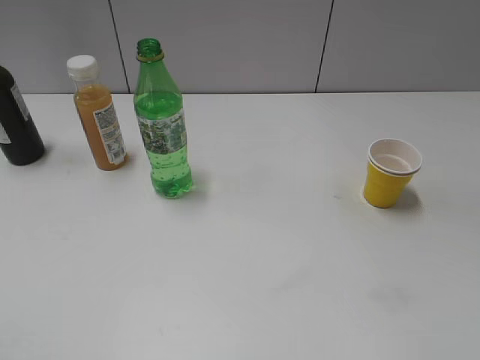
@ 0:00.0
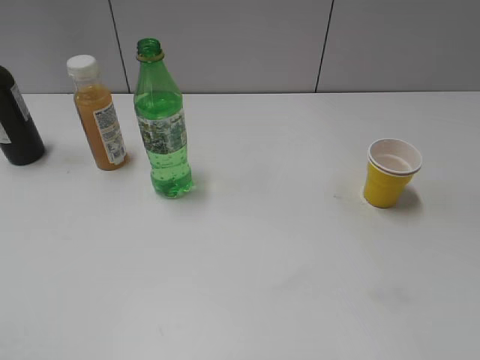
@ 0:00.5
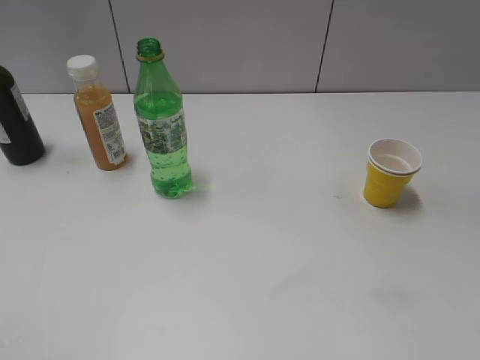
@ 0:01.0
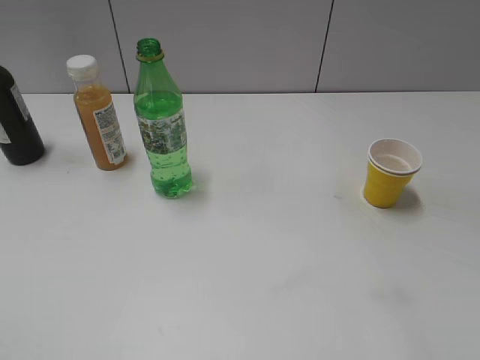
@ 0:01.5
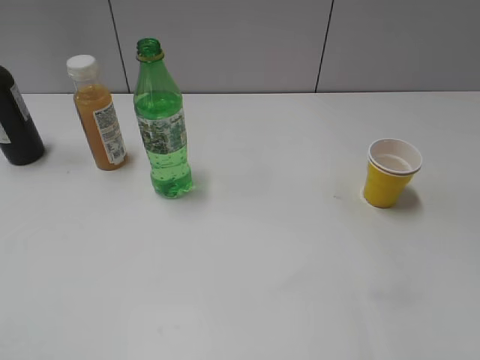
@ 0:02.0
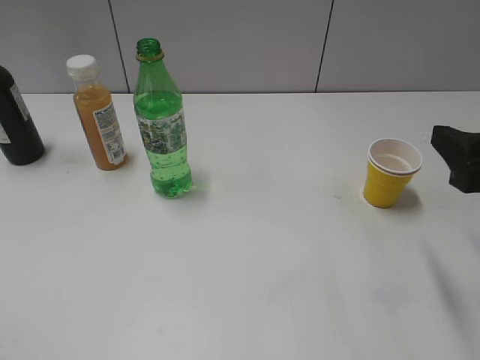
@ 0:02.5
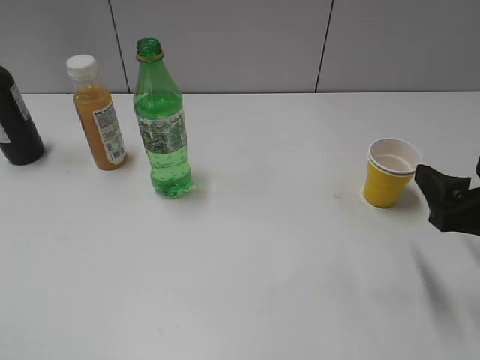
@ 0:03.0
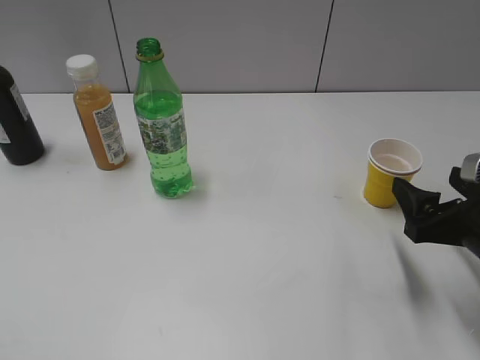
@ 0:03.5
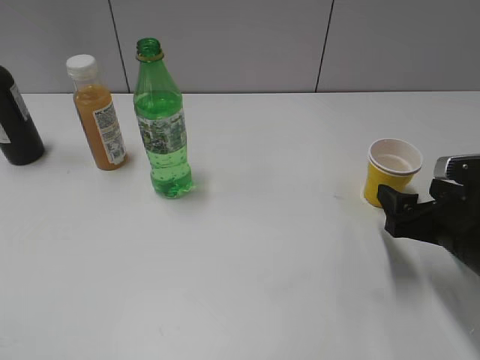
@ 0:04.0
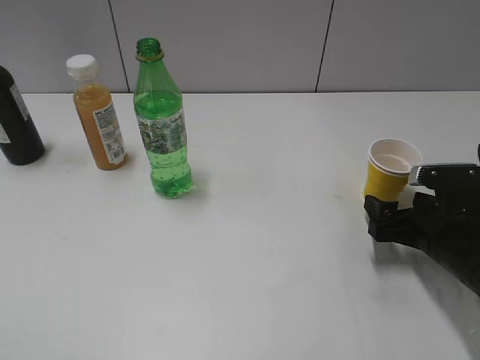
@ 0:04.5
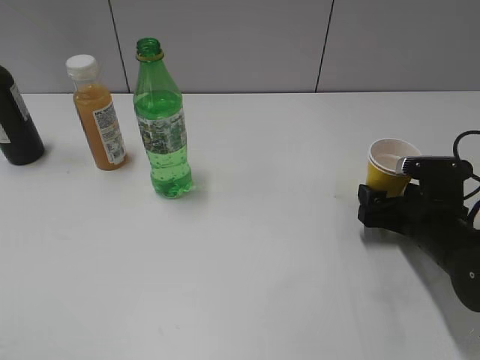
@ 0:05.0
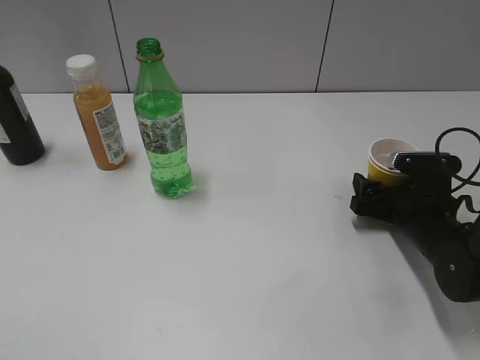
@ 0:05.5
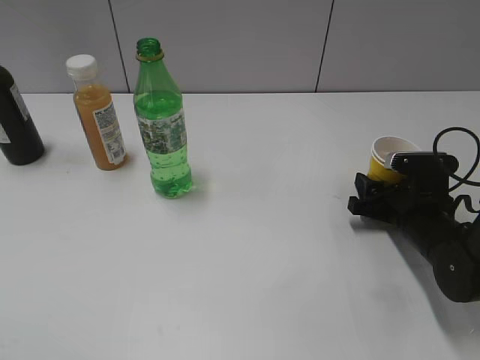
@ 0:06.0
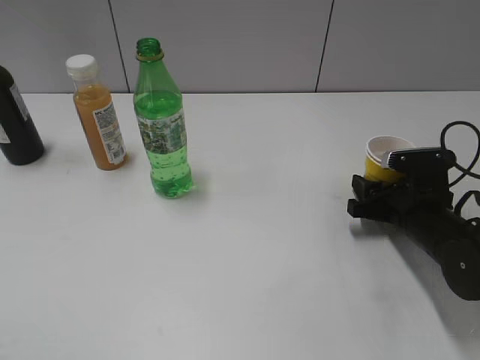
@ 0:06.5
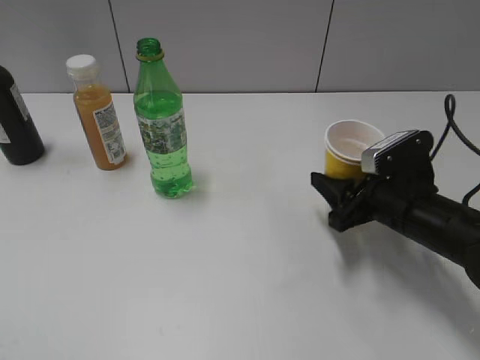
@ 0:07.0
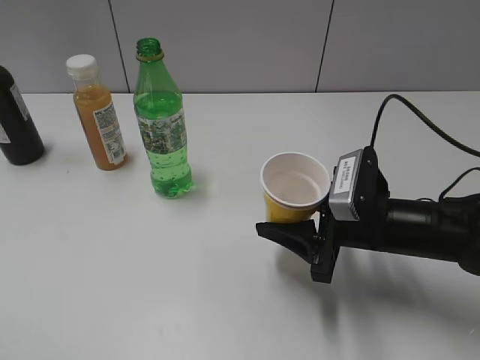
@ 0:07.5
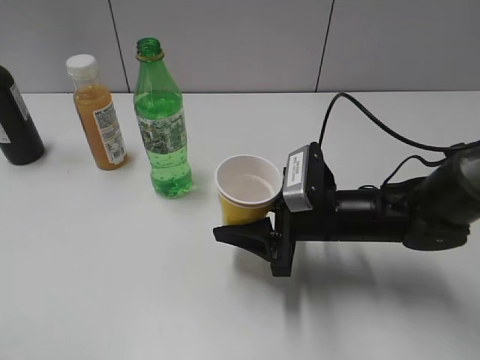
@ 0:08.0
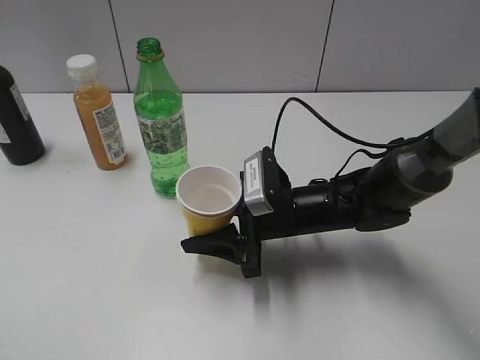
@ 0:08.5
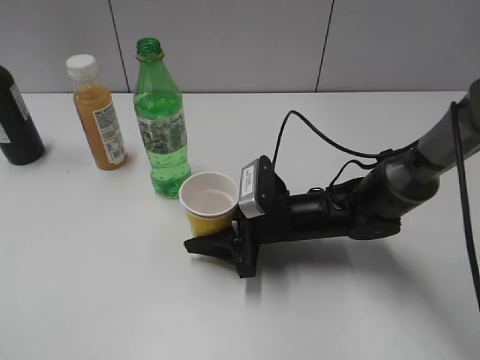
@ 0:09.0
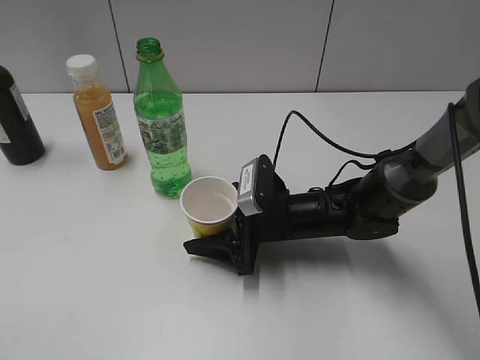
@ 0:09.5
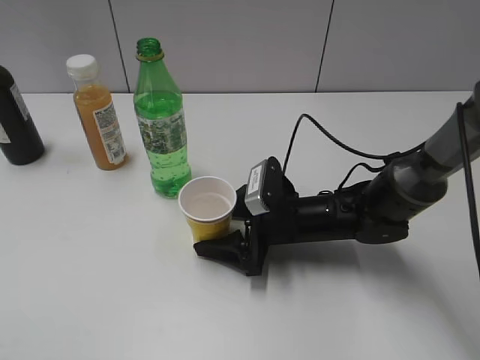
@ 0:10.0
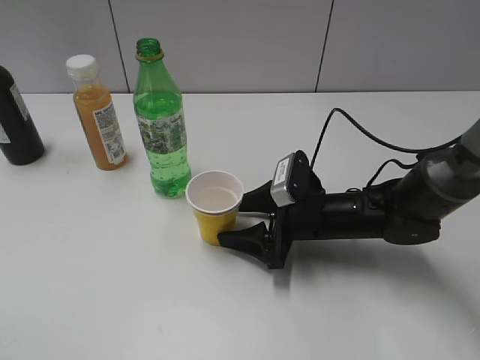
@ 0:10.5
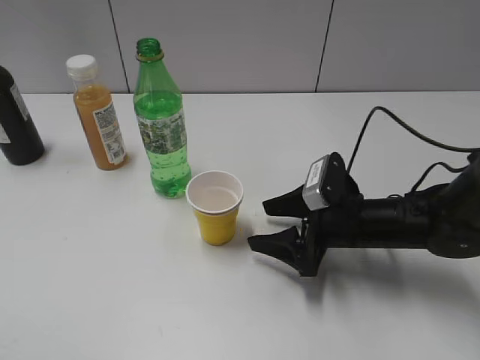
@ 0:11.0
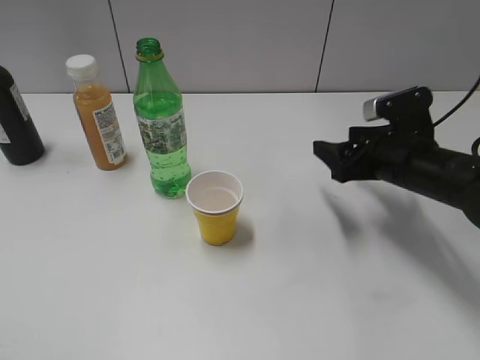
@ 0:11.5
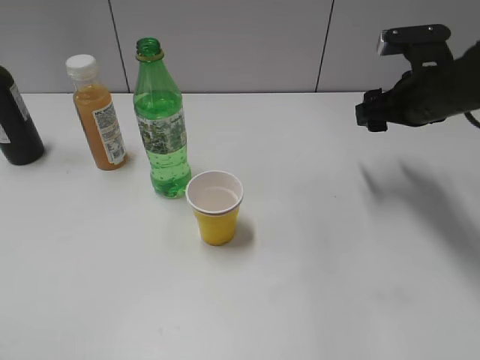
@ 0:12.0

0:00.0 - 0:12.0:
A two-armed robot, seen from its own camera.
Step, 0:01.0 - 0:06.0: Grasp the yellow paper cup with right gripper.
Step, 0:06.5 - 0:10.5: Place the yellow paper cup on the table with right gripper.
0:02.0 - 0:04.0: The right gripper moves downward, roughly 20 cm, and opens up.
0:04.0 - 0:06.0: The right gripper shifts roughly 10 cm forward and downward, and closes its fingers.
0:06.0 - 0:08.0: The right gripper is displaced to the left by approximately 15 cm.
0:08.0 - 0:10.0: The right gripper is displaced downward by roughly 5 cm, and opens.
0:10.0 - 0:12.0: The right gripper moves upward, to the right and forward, approximately 20 cm.

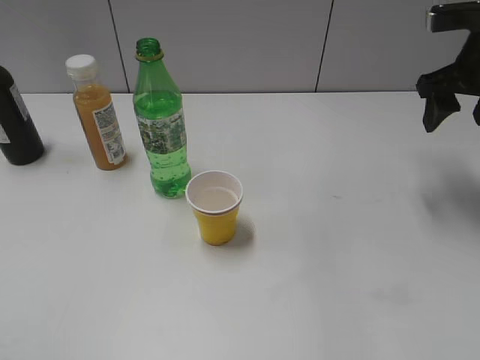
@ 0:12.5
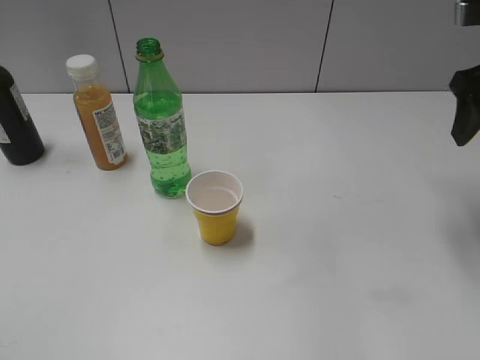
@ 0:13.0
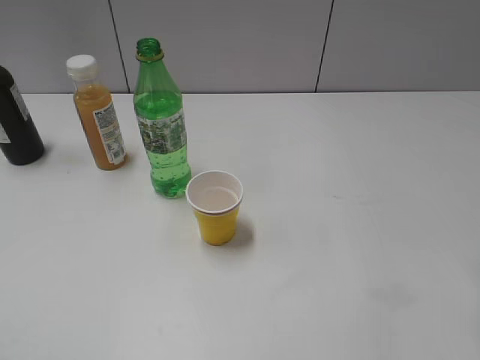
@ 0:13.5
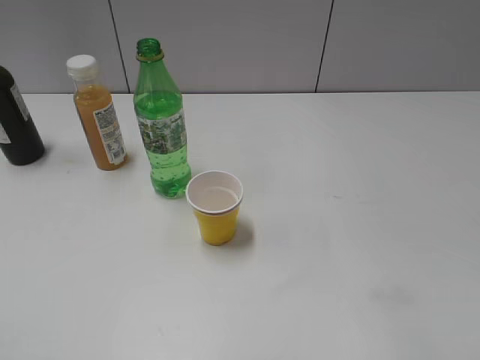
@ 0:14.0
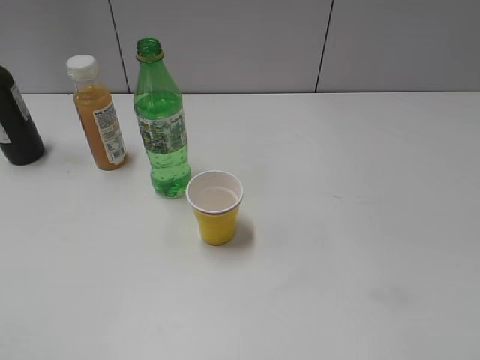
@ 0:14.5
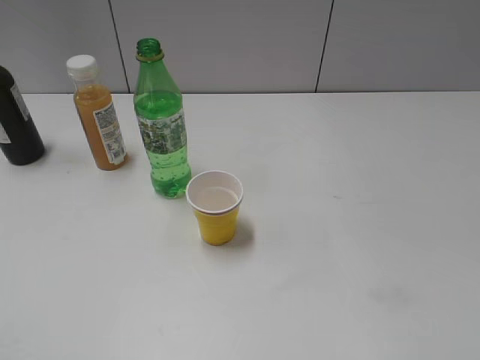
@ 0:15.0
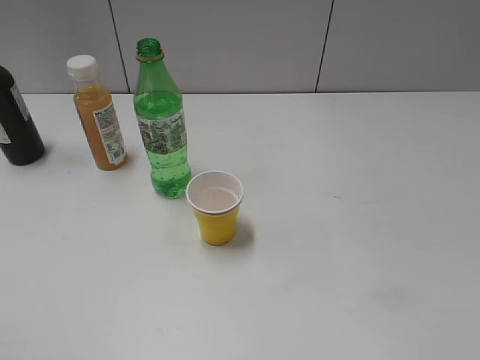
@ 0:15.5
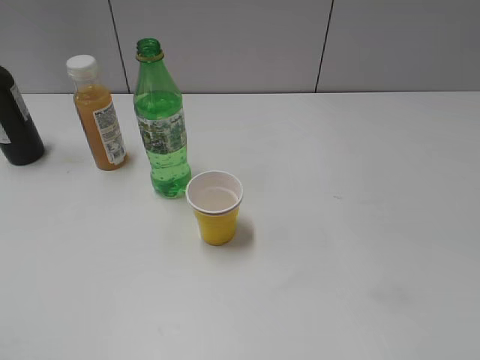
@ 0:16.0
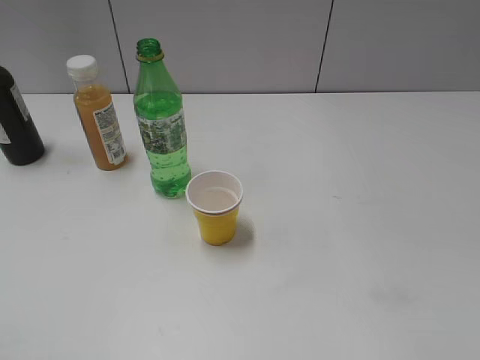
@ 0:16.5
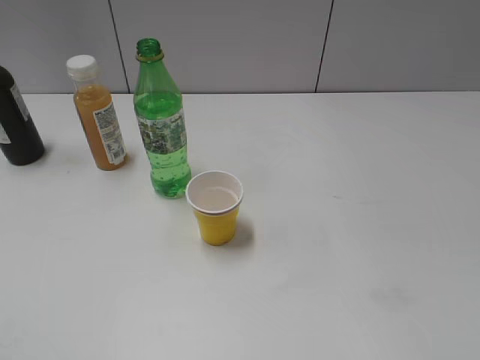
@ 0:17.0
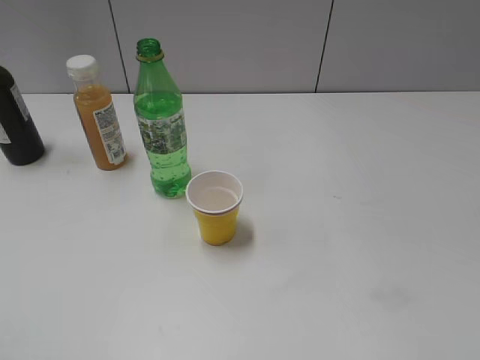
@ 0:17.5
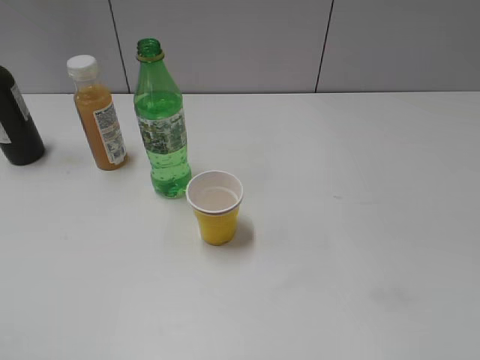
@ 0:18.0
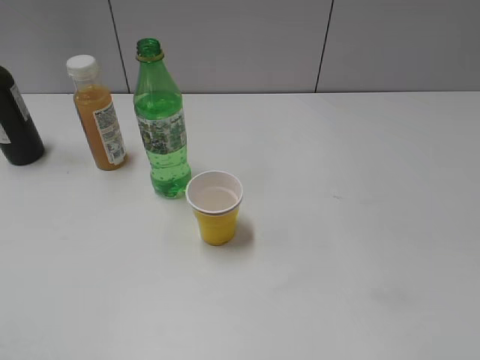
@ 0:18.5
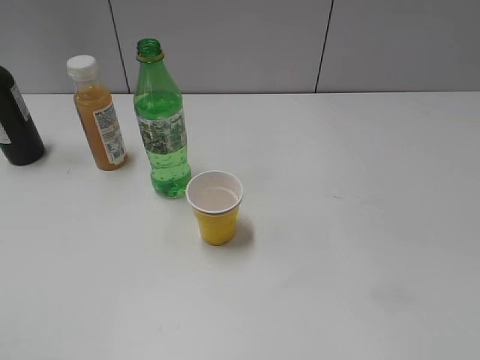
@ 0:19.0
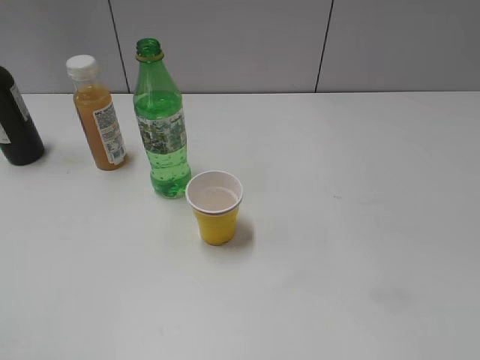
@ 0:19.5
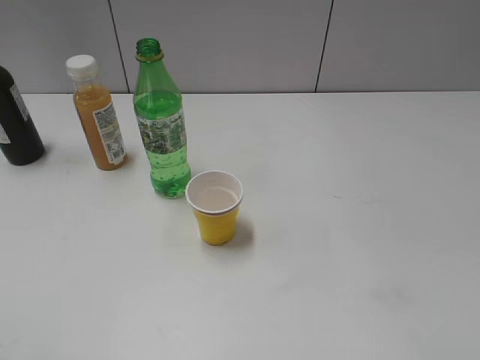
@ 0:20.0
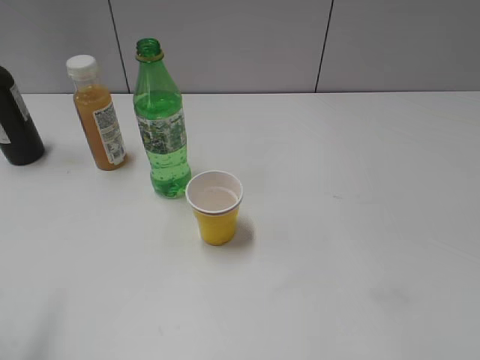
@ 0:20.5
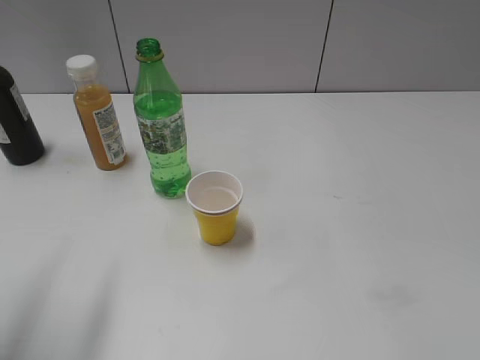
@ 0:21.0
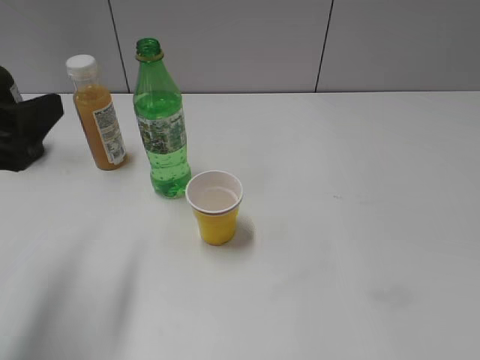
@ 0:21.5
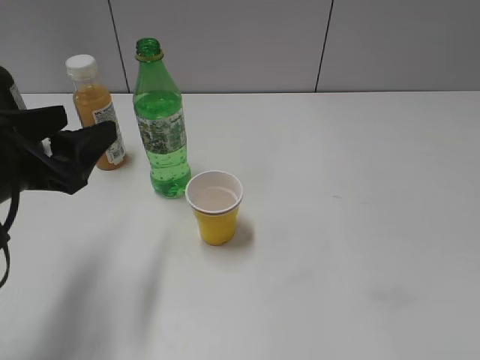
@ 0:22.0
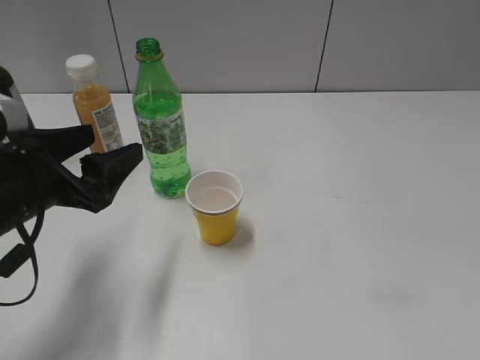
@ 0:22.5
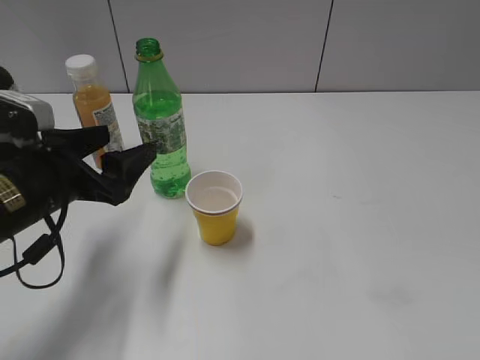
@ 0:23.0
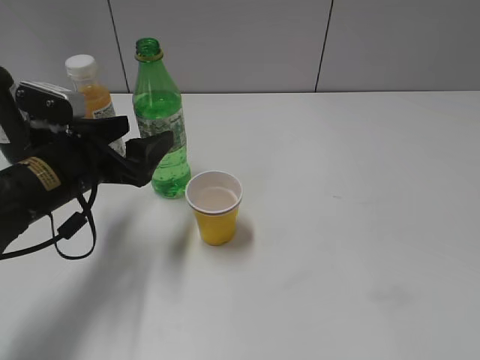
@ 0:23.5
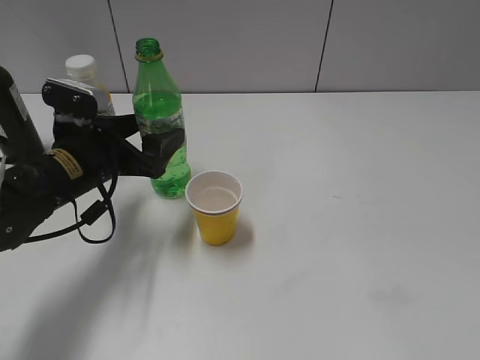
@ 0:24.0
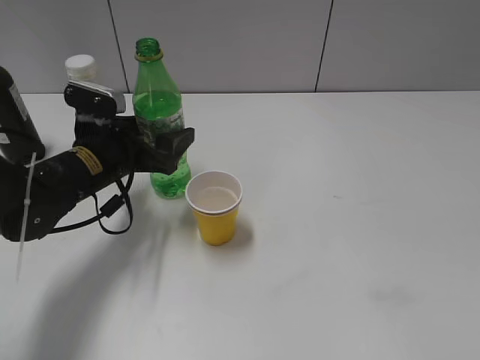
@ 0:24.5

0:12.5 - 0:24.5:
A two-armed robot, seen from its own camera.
0:12.5 - 0:14.5: The right gripper shifts some 30 cm backward.
0:16.5 - 0:18.5: The two grippers keep their place.
0:20.5 - 0:22.5: The left gripper goes approximately 20 cm downward, forward and to the right.
0:22.5 - 0:24.5: The left gripper is displaced forward and downward by roughly 10 cm.

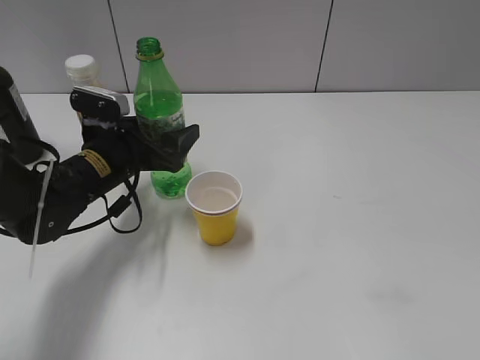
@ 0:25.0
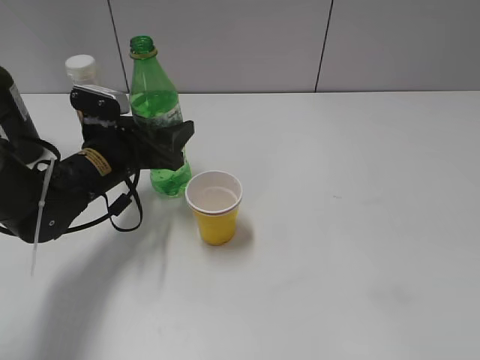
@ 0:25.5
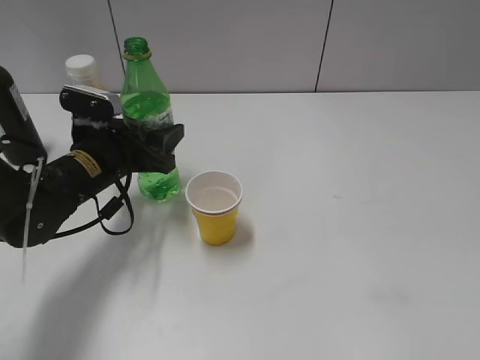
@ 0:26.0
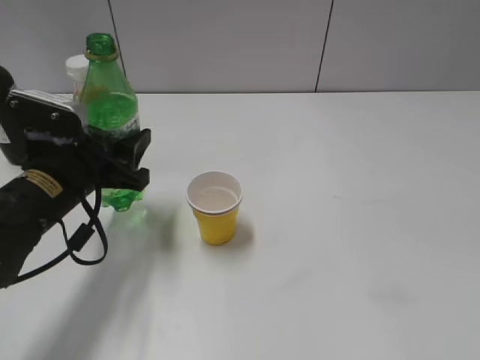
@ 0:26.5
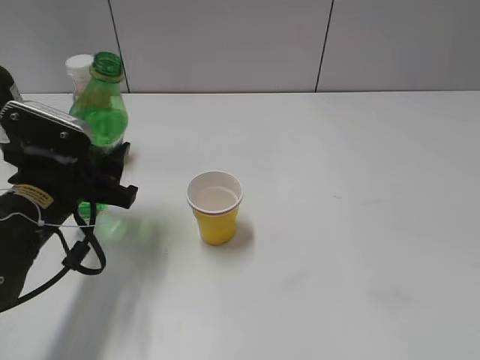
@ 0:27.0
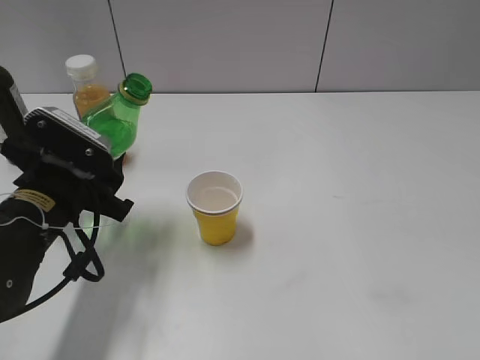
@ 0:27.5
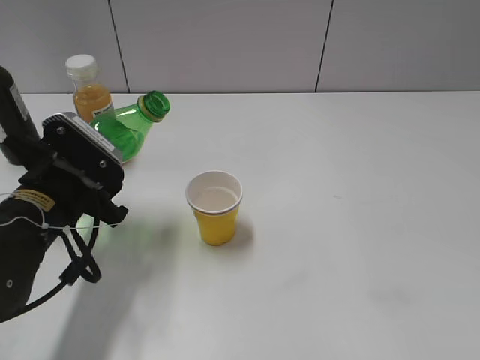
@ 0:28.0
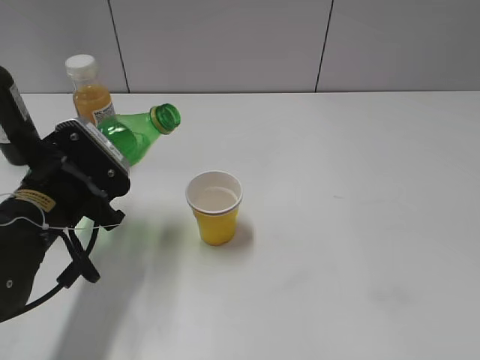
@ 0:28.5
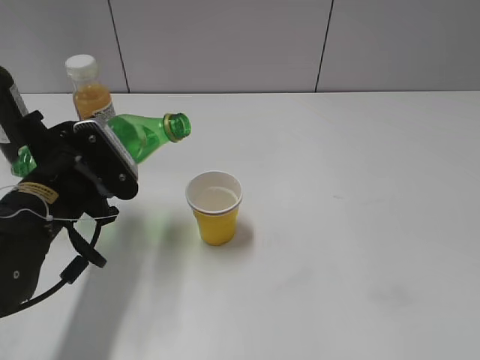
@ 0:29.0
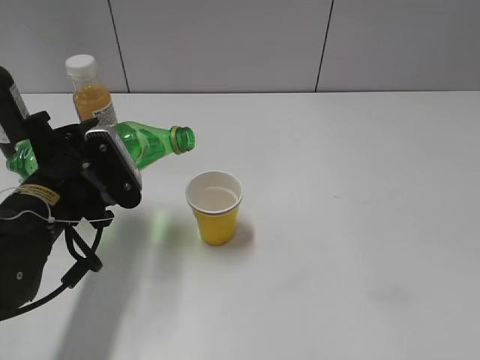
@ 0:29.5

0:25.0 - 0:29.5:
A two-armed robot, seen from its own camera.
0:25.0 - 0:27.0: The left gripper travels backward by about 10 cm, and closes its fingers.
